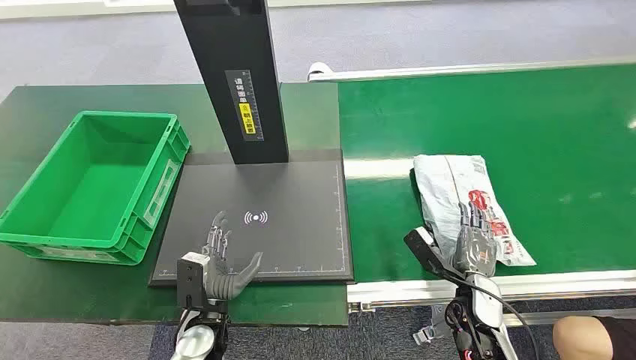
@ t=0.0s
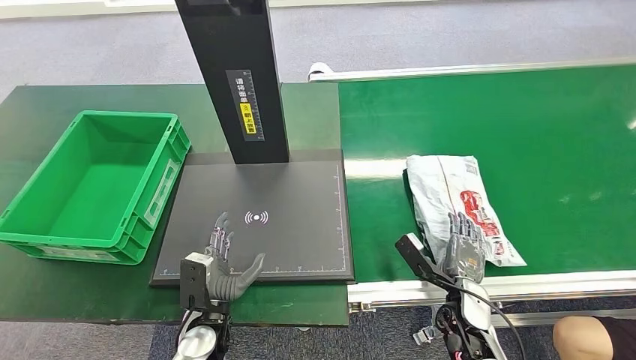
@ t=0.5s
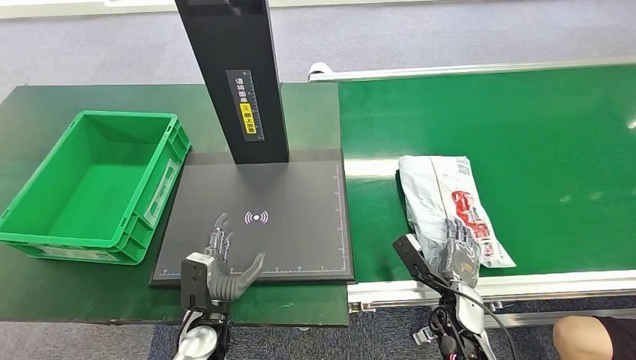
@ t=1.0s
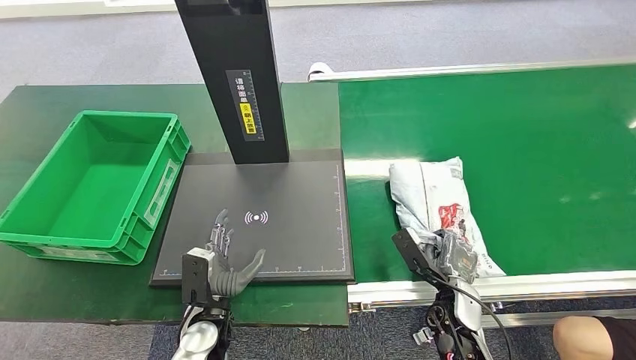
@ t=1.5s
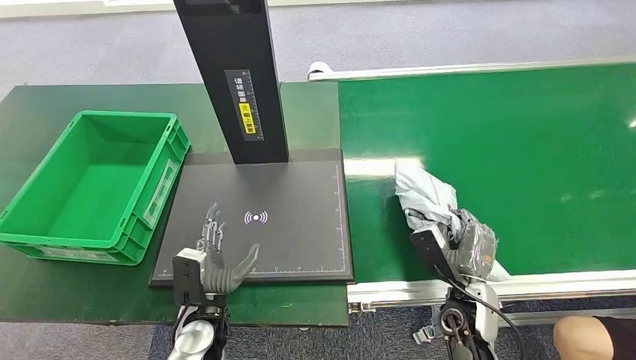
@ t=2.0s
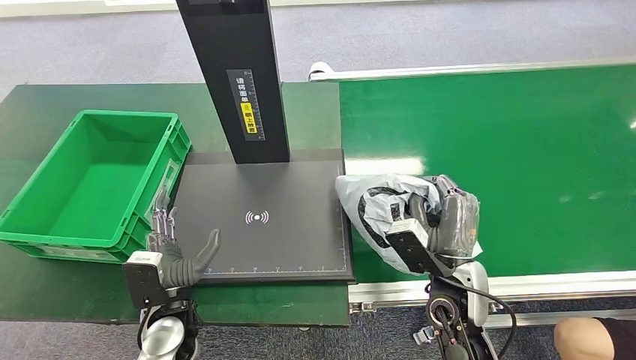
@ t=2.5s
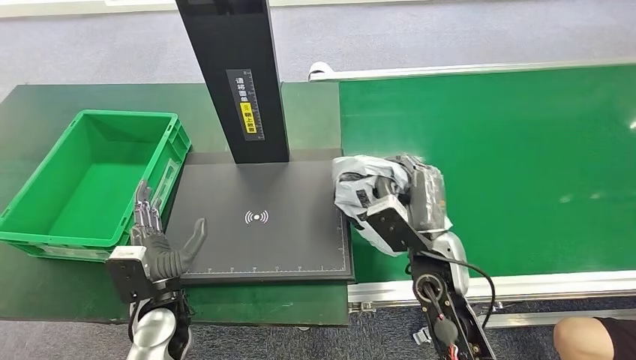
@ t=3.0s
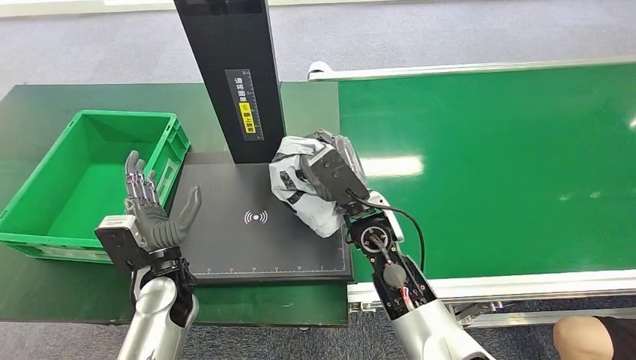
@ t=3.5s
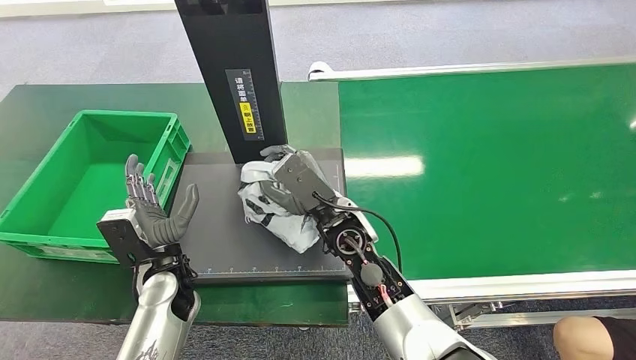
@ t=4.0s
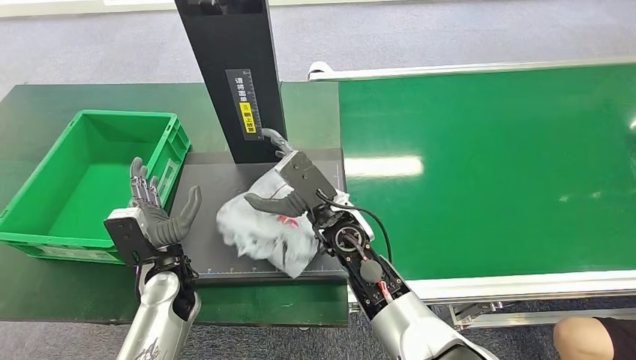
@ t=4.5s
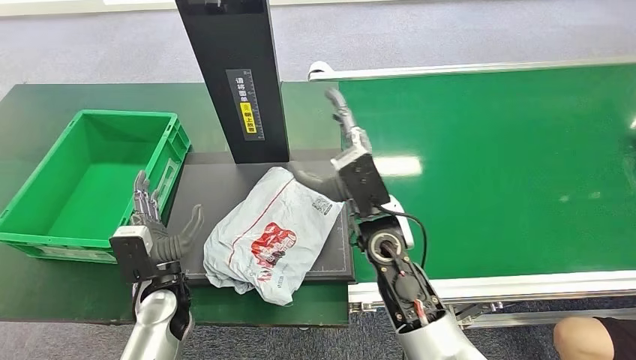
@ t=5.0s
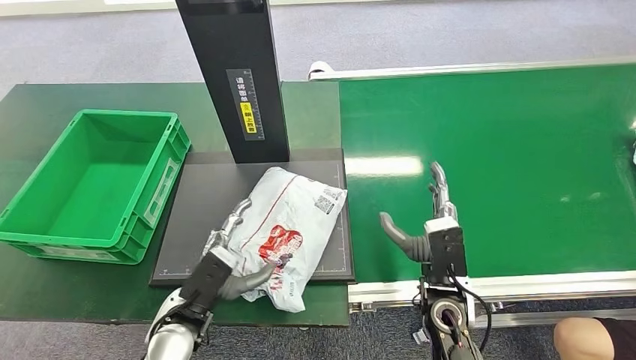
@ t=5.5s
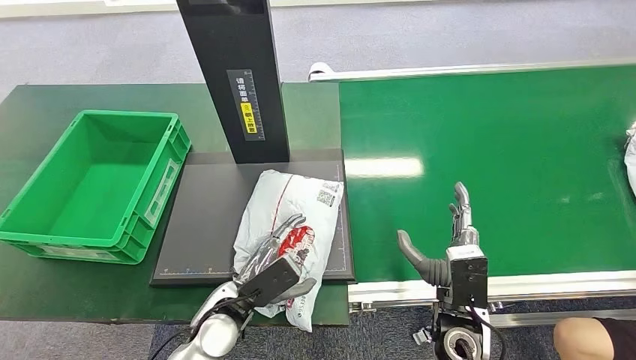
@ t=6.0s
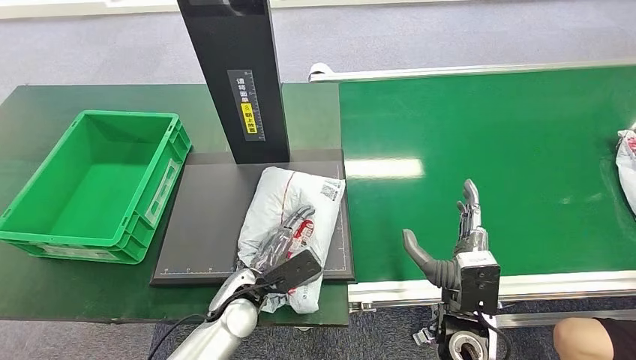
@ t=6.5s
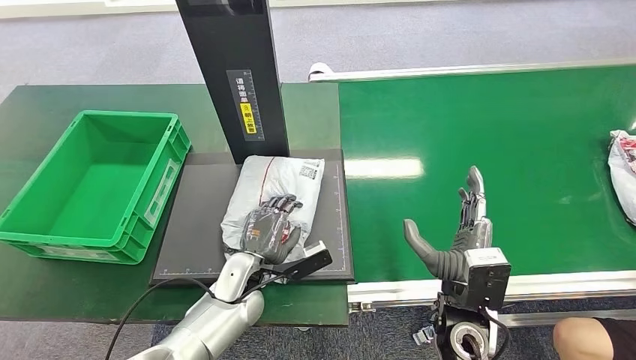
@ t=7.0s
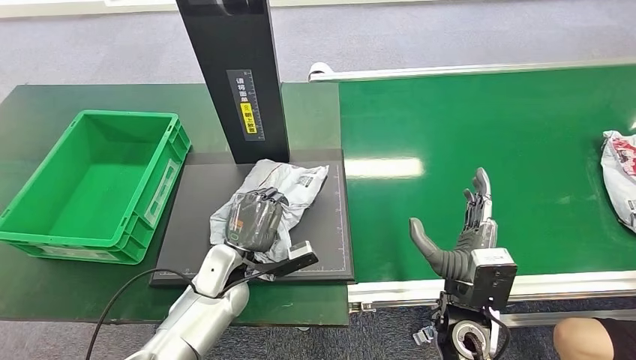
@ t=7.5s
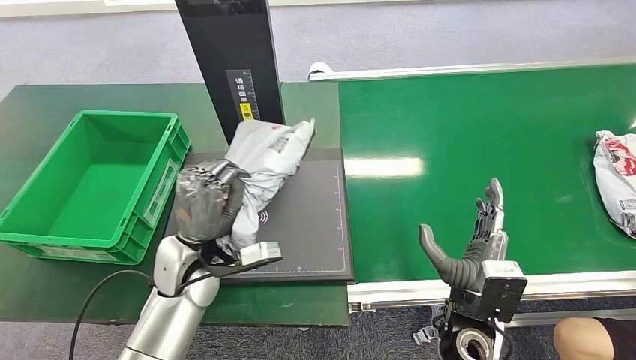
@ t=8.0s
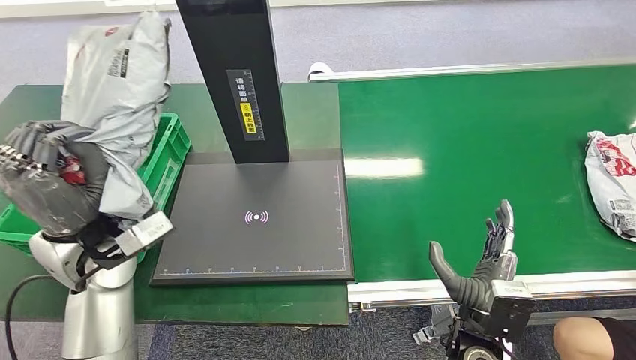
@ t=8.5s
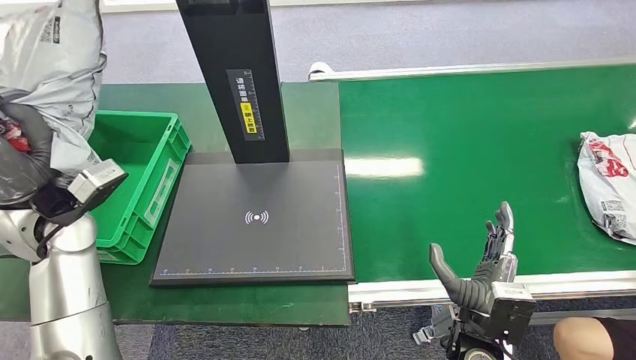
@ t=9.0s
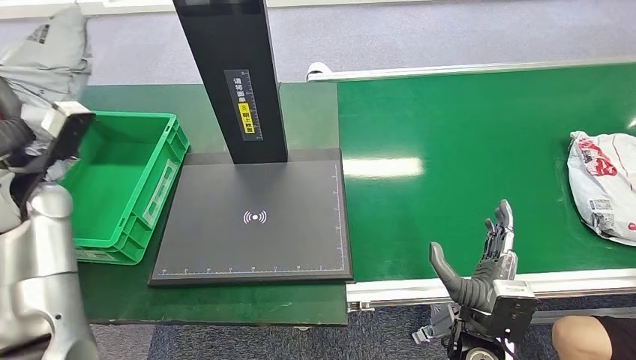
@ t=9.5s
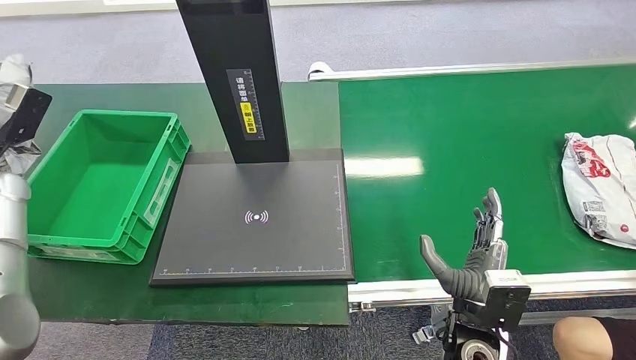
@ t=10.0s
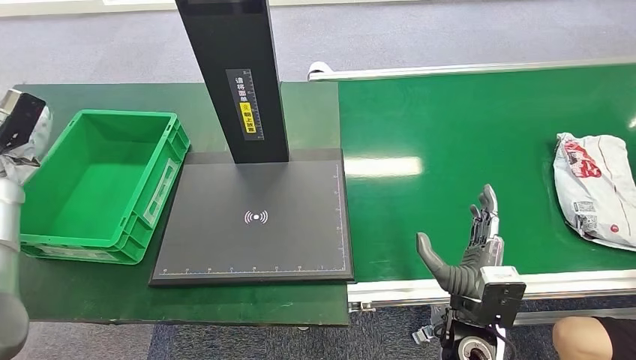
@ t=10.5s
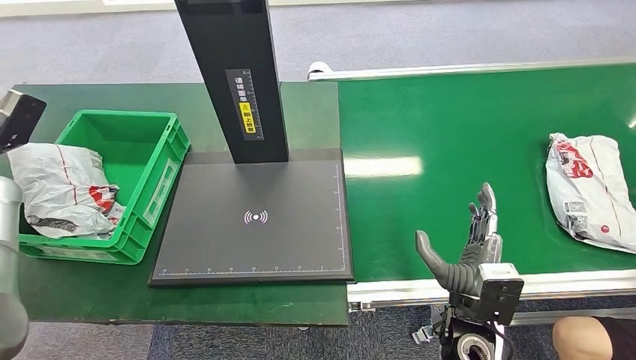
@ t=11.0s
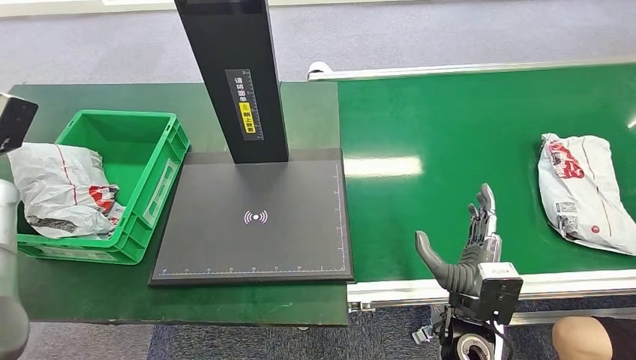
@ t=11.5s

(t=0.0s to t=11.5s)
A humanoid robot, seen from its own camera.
Step, t=0.0s - t=3.5s: Pick up the package from the conveyor belt.
Step, t=4.0s - t=5.5s: Place the package onto the inbound machine.
Step, t=6.0s - t=8.0s: Pick up the package from the inbound machine.
Step, t=9.0s - t=11.5s: Place the package into the parcel locker.
t=6.0s - t=7.5s: The left hand travels forward by approximately 5 cm.
